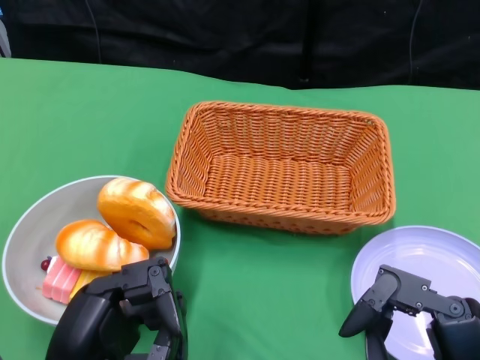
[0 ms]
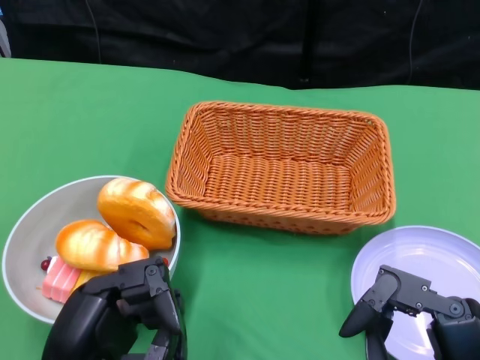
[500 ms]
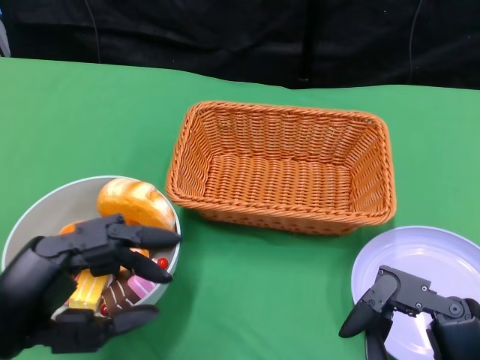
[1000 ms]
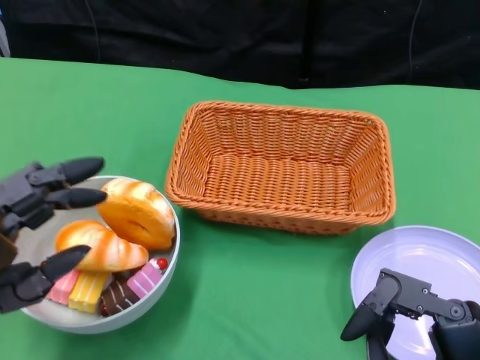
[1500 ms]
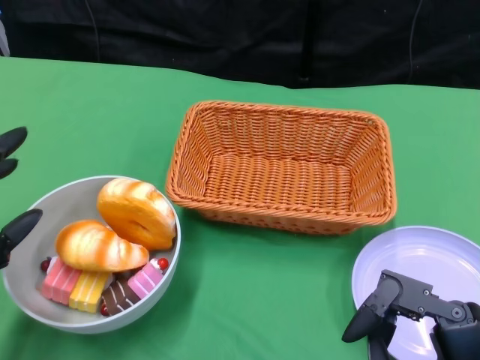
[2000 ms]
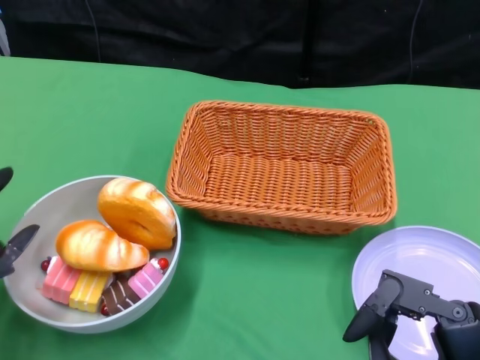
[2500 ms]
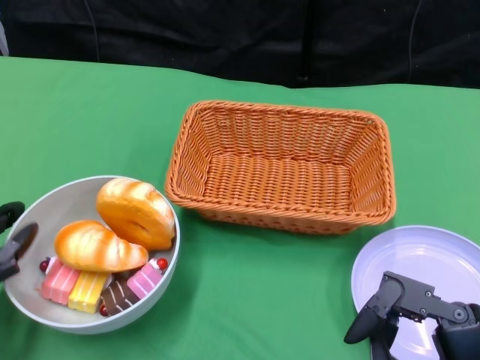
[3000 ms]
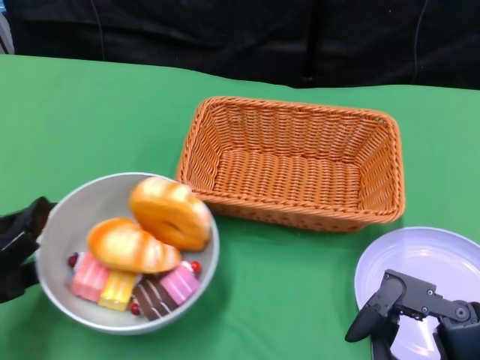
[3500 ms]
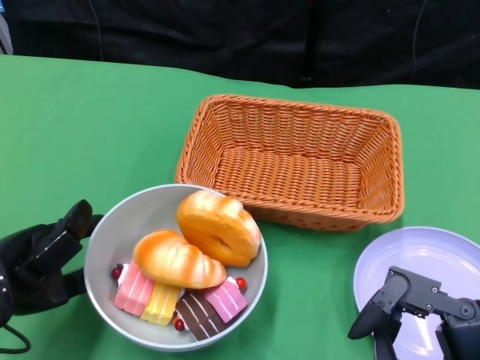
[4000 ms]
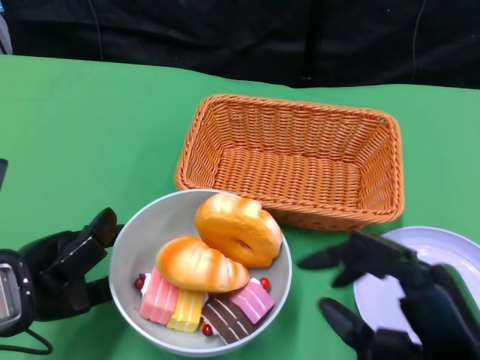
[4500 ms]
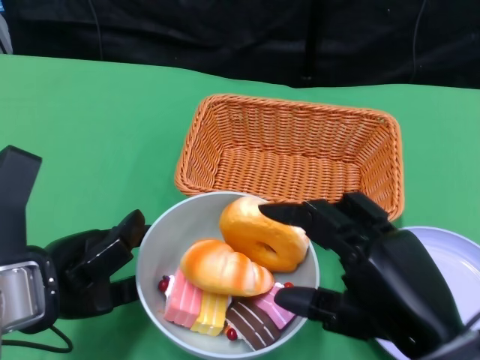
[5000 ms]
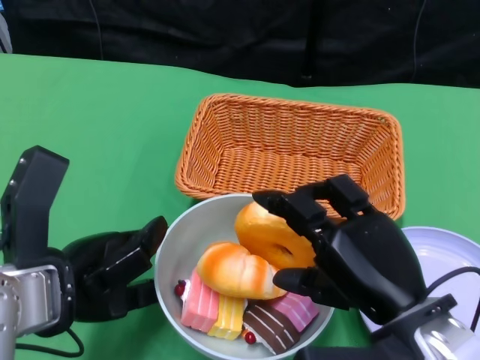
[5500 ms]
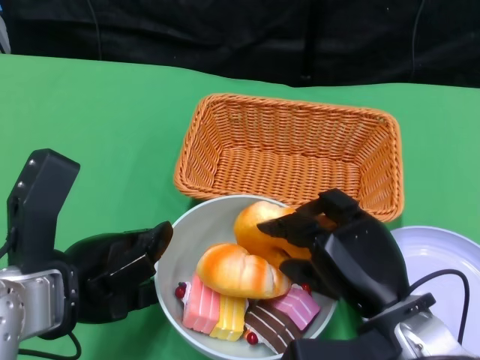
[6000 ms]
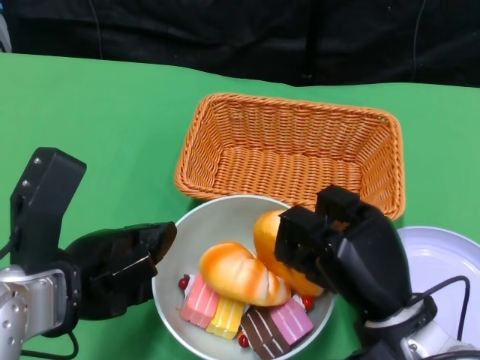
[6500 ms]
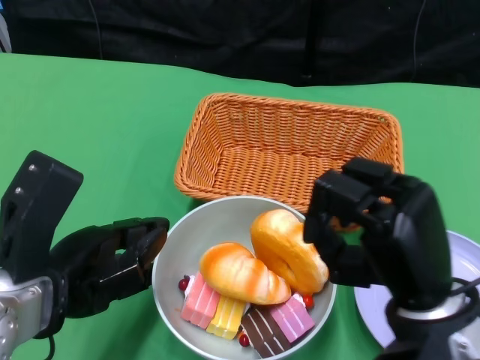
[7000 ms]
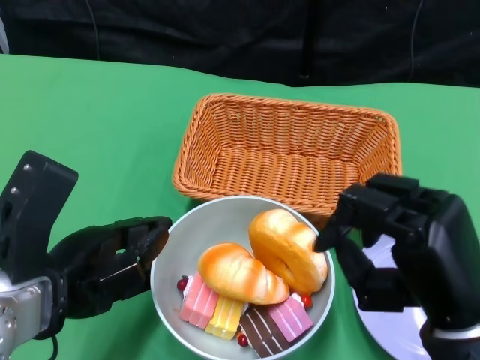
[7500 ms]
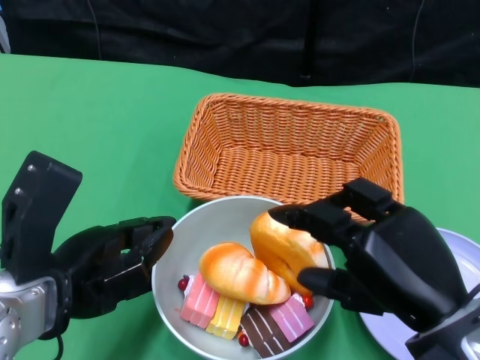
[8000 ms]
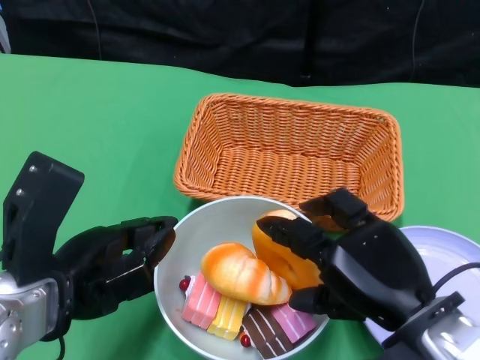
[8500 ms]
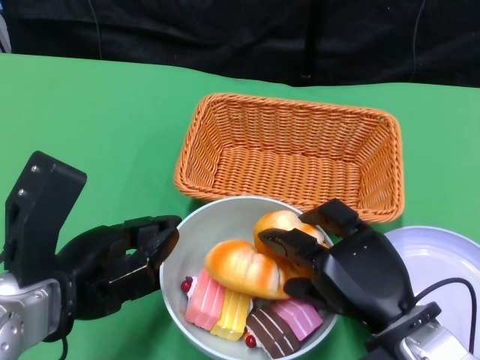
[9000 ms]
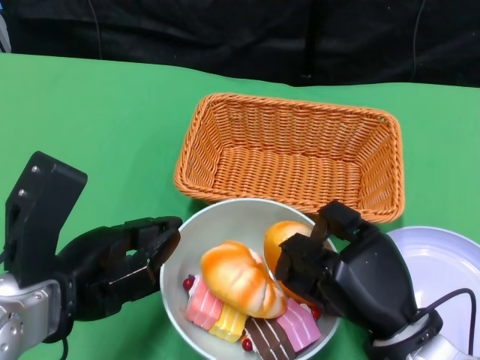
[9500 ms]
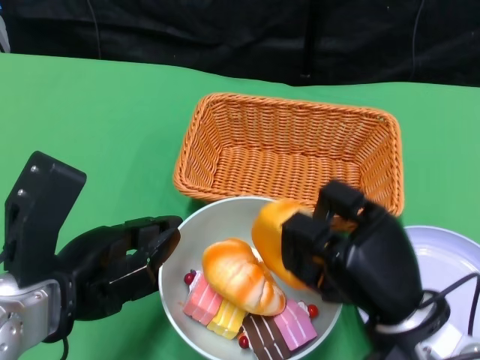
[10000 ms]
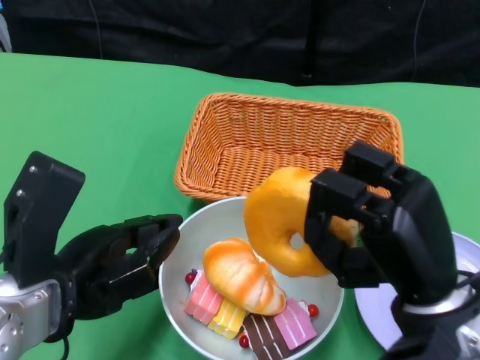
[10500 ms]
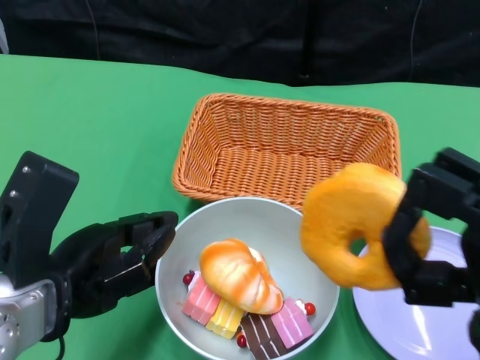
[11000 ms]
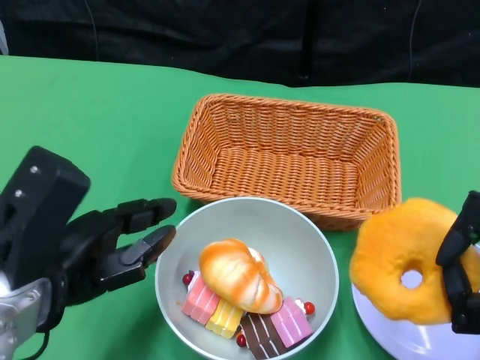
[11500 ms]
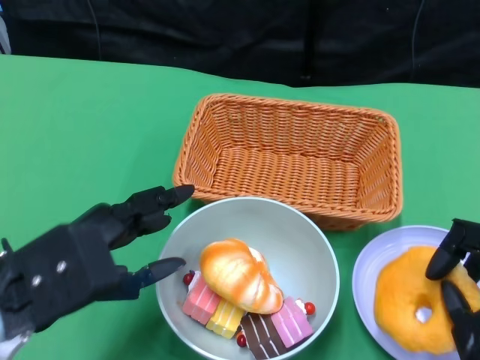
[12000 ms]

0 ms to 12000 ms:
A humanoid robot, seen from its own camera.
Step, 0 ms to 4500 ms: Push the bowl to the center of the table using the left gripper.
2000 ms to 4000 ms: The left hand moves roughly 5 cm.
4000 ms to 6000 ms: The right hand shifts about 10 cm forward and to the left. The left hand shifts approximately 5 cm to the right.
6000 ms to 8000 ms: The right hand is displaced upward by about 5 cm.
8000 ms to 10000 ms: The right hand goes about 5 cm downward.
10000 ms to 12000 ms: The right hand goes roughly 10 cm to the right and backward.

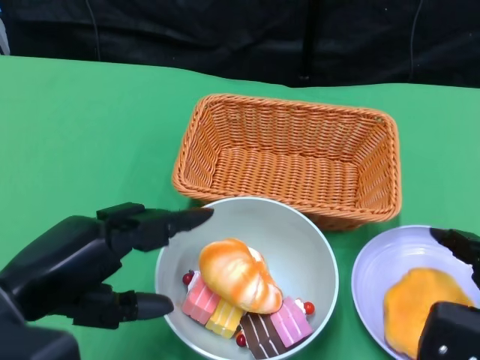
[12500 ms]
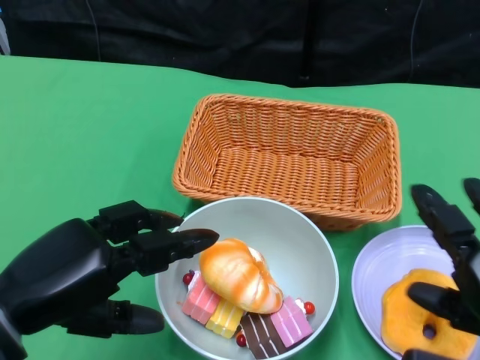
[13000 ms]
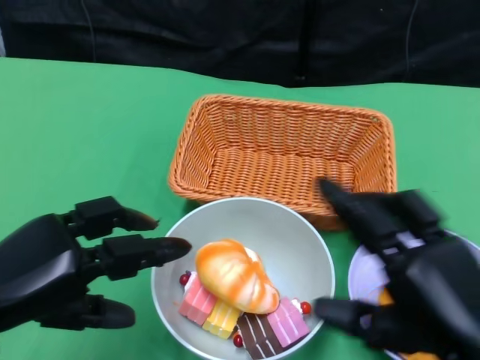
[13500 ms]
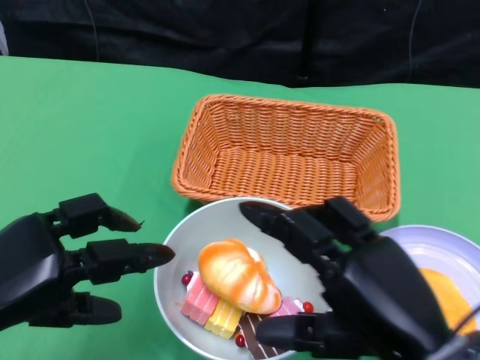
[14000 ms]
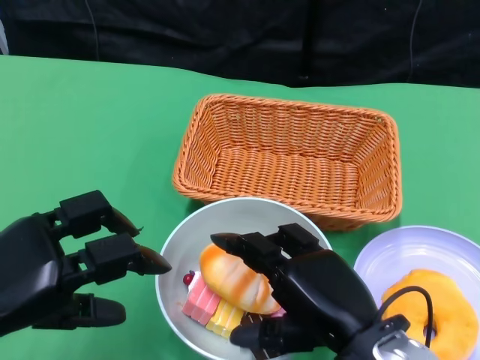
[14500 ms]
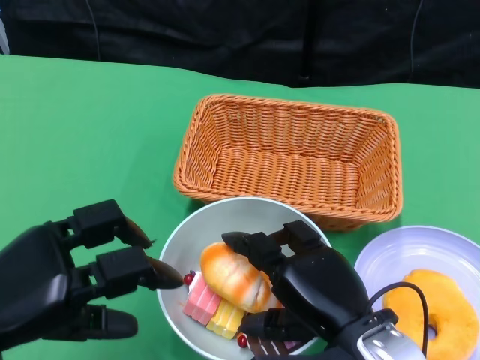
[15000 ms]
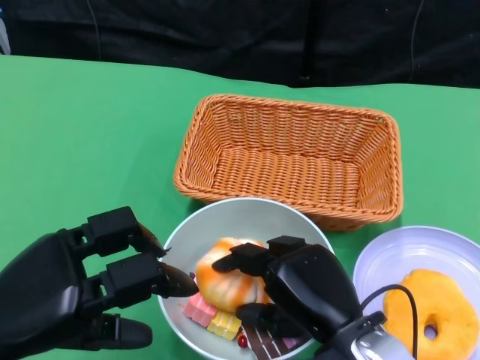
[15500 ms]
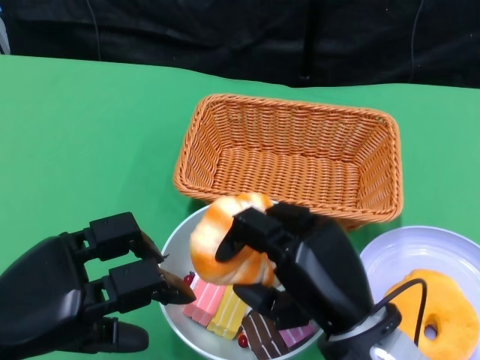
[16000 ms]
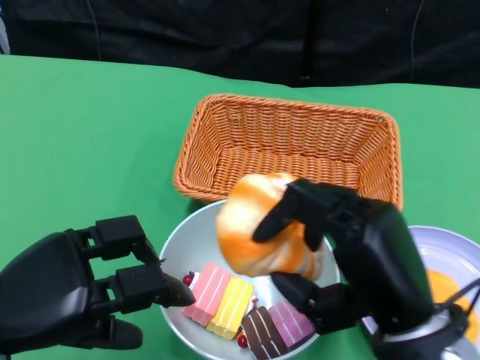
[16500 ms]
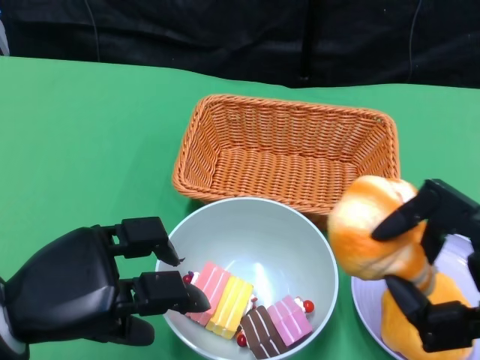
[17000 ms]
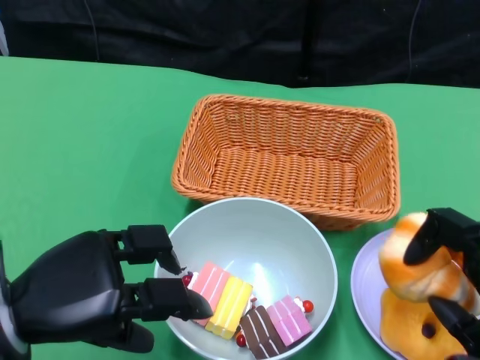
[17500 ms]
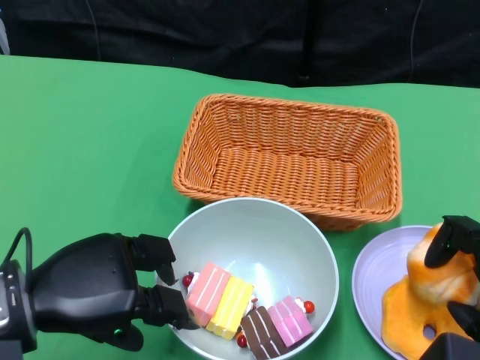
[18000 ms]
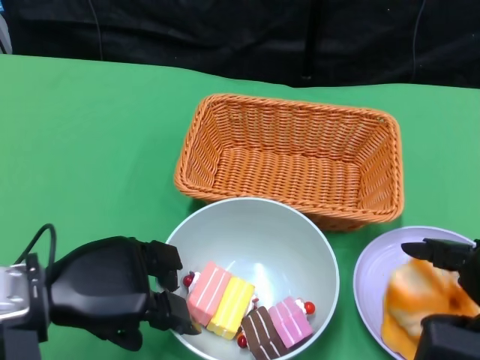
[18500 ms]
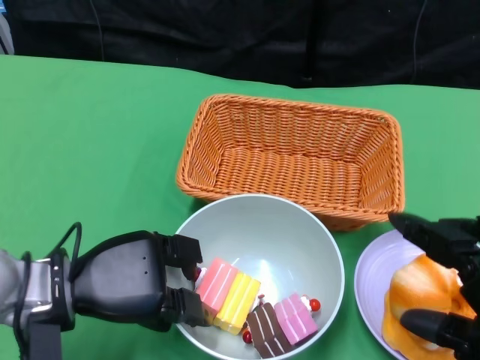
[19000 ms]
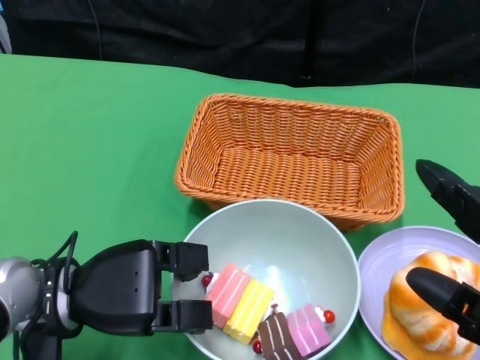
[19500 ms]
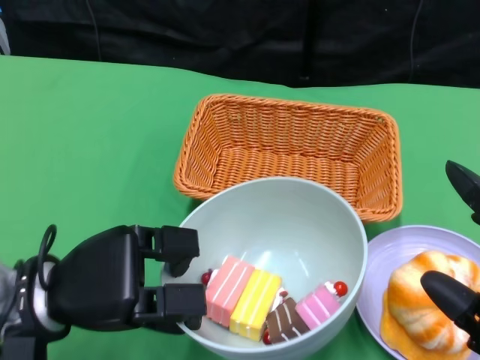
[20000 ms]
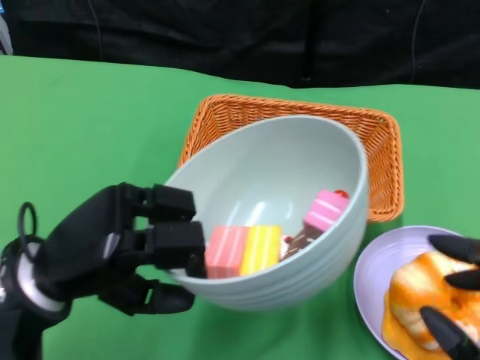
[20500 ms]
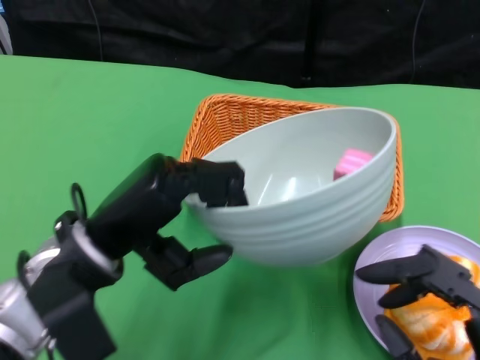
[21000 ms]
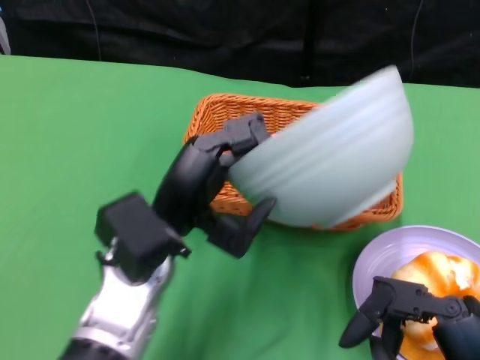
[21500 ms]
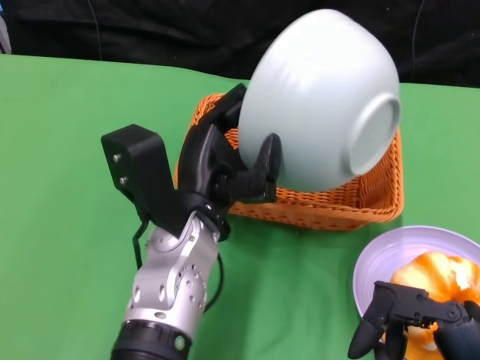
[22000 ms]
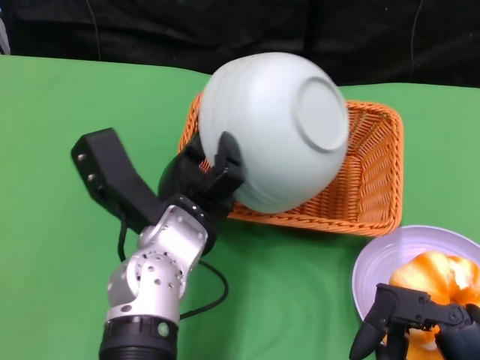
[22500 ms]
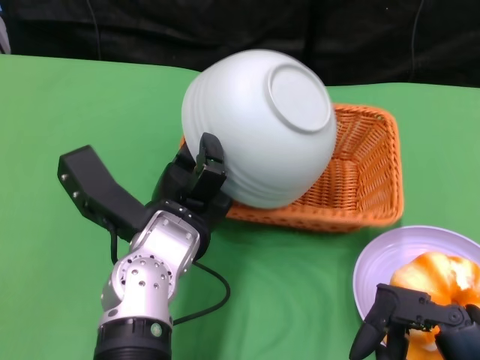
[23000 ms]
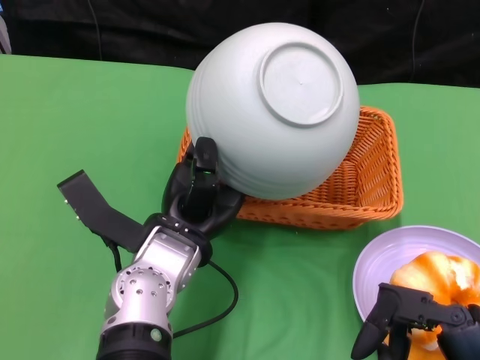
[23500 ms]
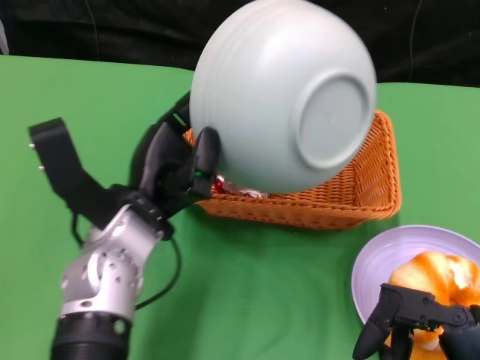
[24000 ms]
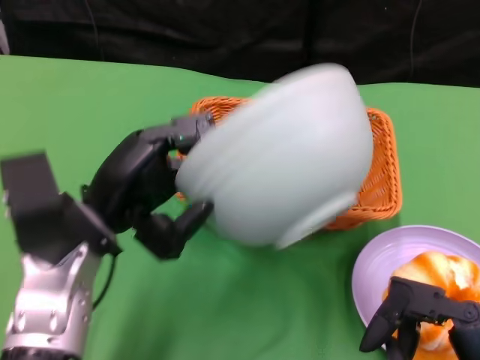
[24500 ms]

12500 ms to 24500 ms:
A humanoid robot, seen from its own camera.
Step, 12500 ms to 18000 ms: Pick up the bread with the right gripper and place it on the plate.
Step, 18500 ms to 19000 ms: Grasp the bowl with the left gripper.
Step, 19500 ms to 23000 ms: Pour the cake into the basket with the left gripper.
12500 ms to 14500 ms: The right hand goes about 15 cm to the left.
16500 ms to 18500 ms: The right hand goes some 10 cm to the right, while the left hand changes place by roughly 5 cm.
18500 ms to 20500 ms: The right hand moves backward, some 10 cm.
20500 ms to 22500 ms: The right hand ends up approximately 5 cm from where it was; the left hand goes approximately 15 cm to the right and forward.
22500 ms to 24500 ms: The left hand goes roughly 10 cm to the left.

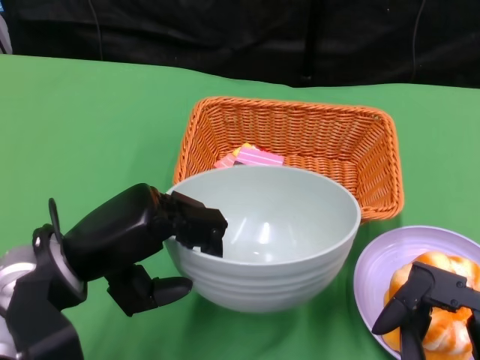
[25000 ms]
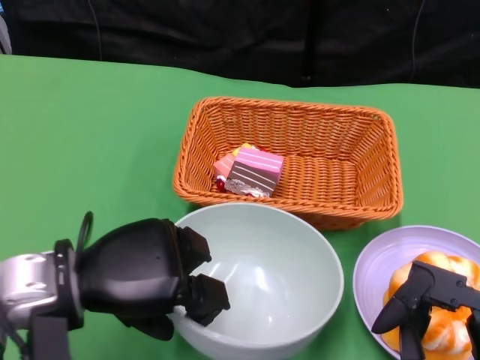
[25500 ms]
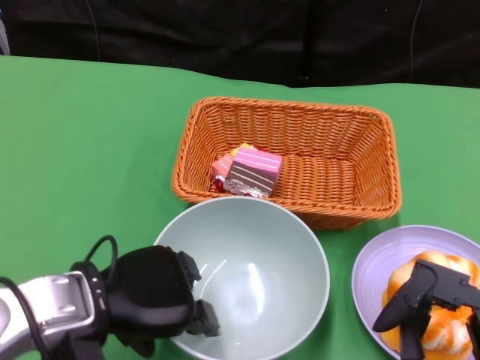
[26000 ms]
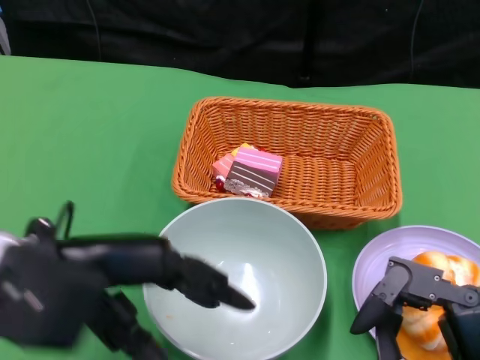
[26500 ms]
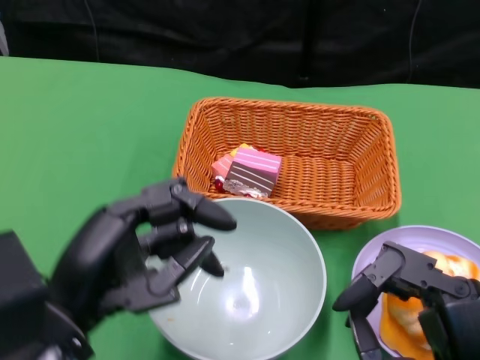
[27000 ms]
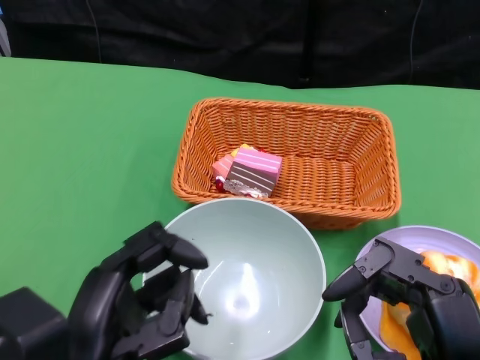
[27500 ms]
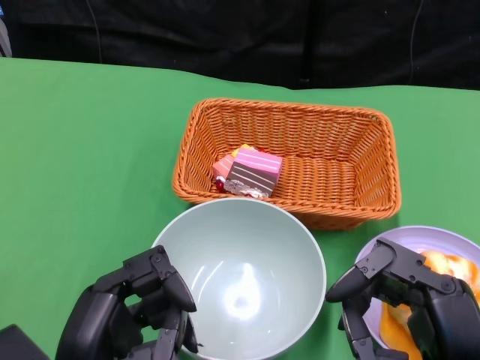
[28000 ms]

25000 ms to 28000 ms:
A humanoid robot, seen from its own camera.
25000 ms to 26500 ms: The left hand shifts approximately 5 cm upward.
26500 ms to 28000 ms: The left hand is displaced backward and downward by about 15 cm.
